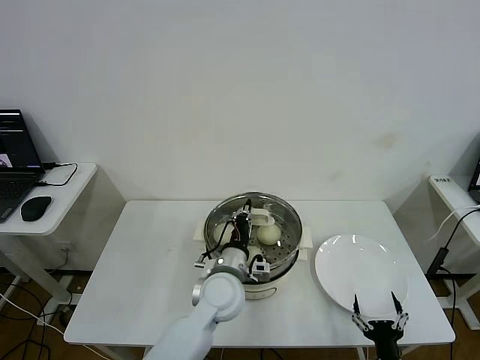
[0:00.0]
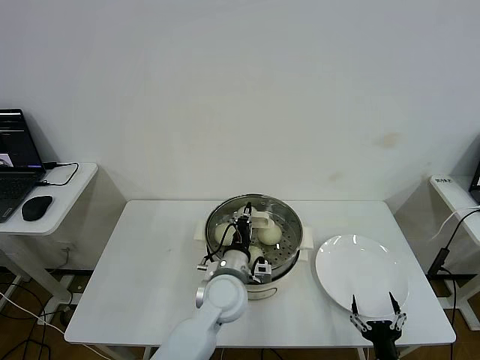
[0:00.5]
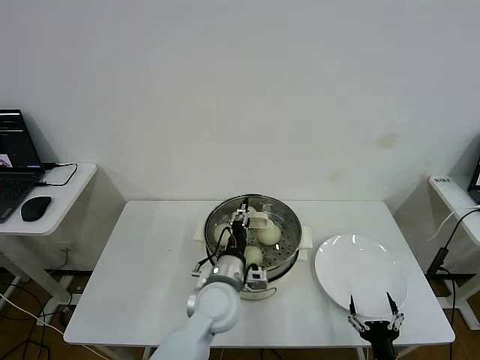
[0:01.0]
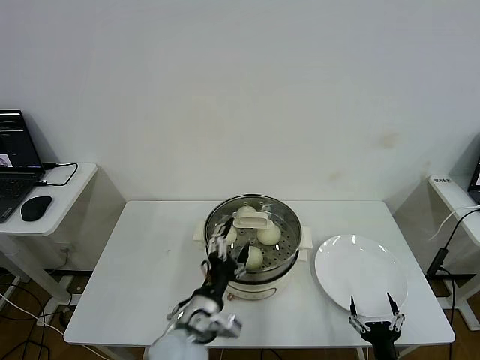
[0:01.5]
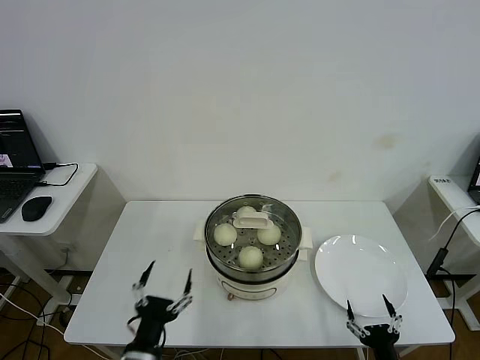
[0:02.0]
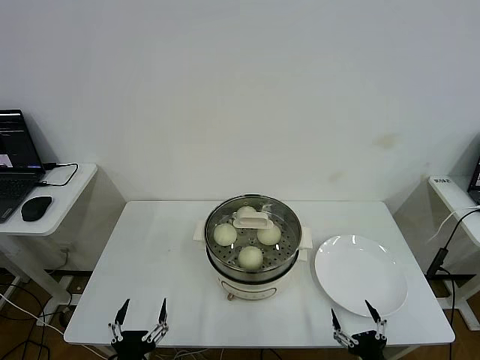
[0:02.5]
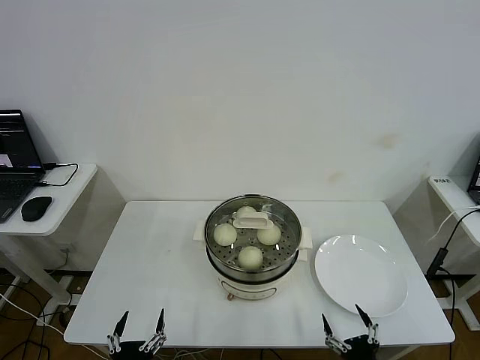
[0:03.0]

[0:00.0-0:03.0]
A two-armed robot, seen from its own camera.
0:00.0 to 0:01.5: The left gripper goes roughly 10 cm backward and to the left, and opens its fingers.
0:01.5 to 0:03.0: The right gripper changes place by about 5 cm. The left gripper moves backward, to the left and downward, approximately 25 cm.
